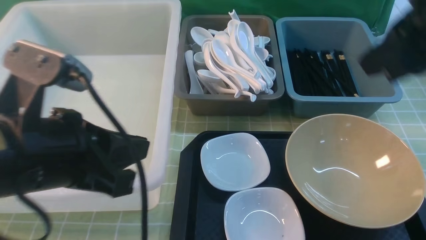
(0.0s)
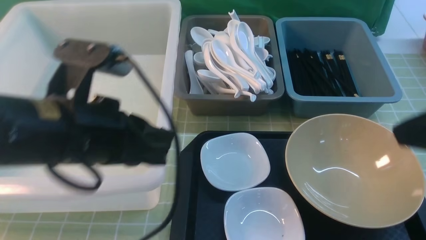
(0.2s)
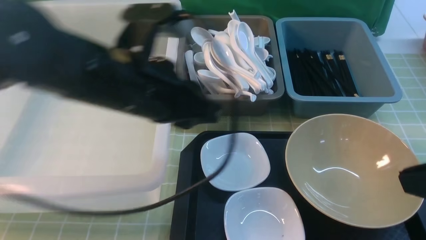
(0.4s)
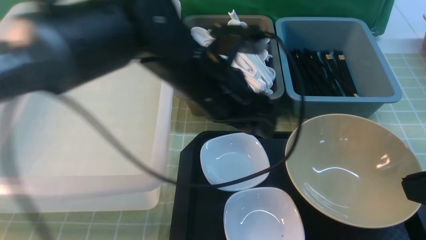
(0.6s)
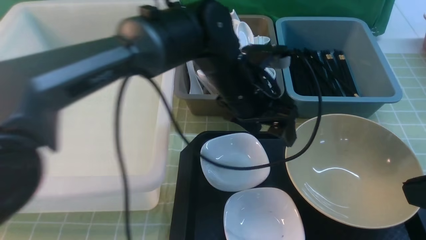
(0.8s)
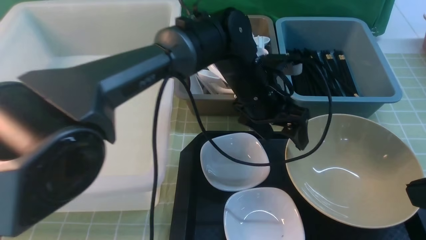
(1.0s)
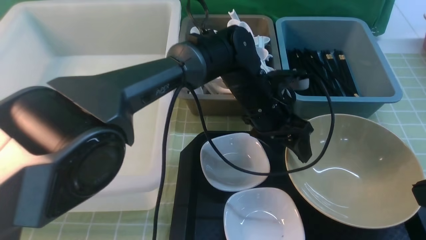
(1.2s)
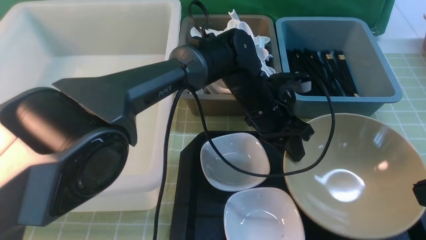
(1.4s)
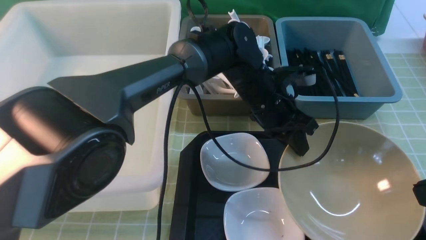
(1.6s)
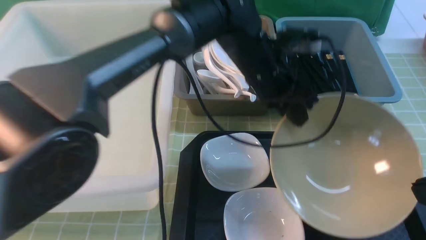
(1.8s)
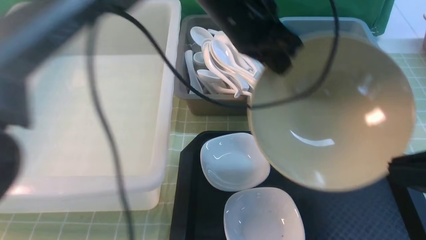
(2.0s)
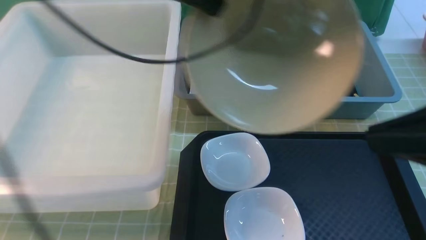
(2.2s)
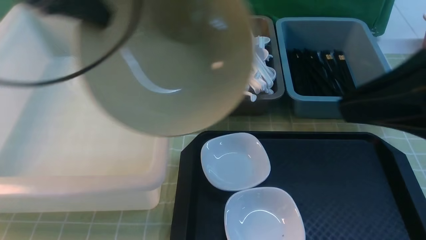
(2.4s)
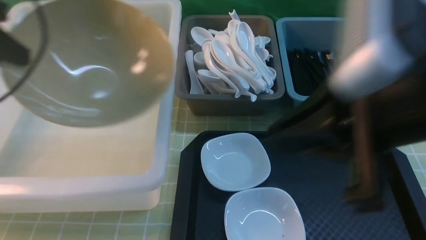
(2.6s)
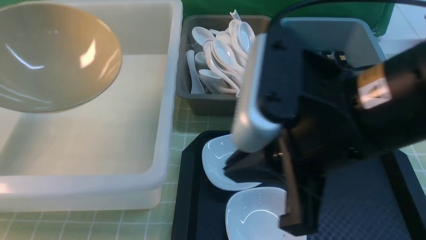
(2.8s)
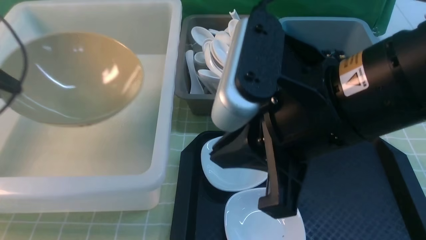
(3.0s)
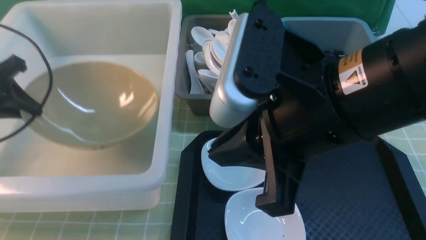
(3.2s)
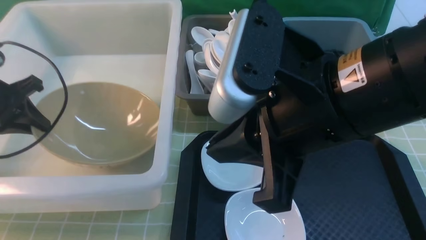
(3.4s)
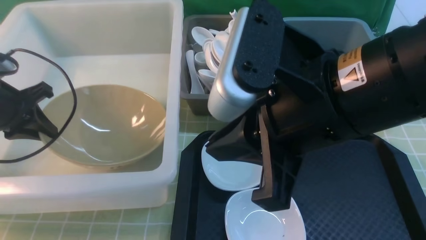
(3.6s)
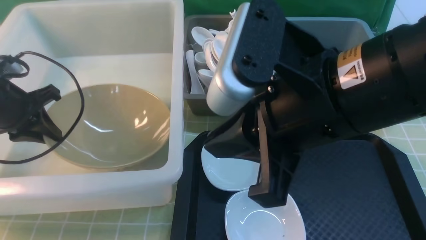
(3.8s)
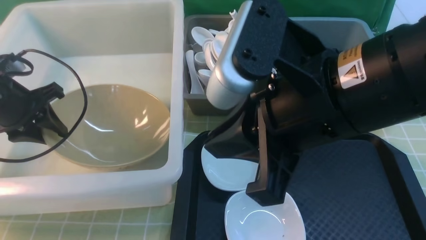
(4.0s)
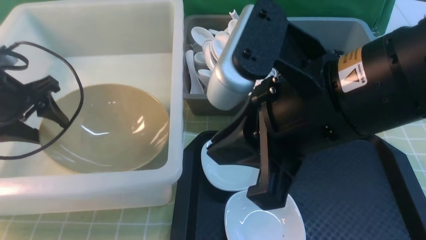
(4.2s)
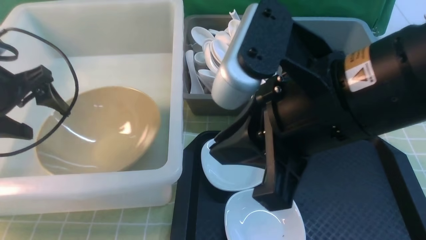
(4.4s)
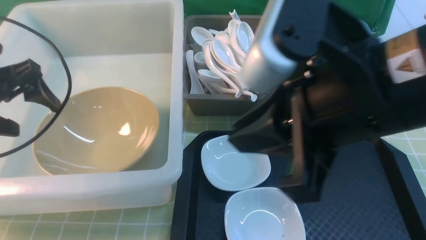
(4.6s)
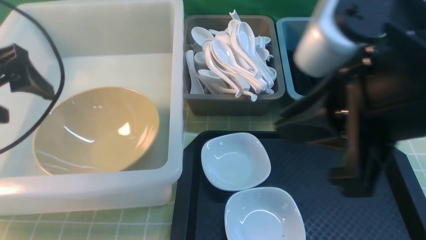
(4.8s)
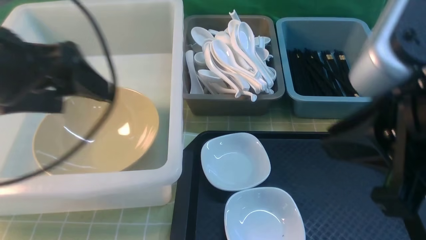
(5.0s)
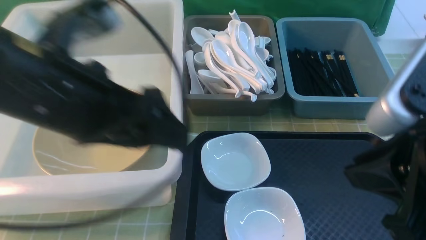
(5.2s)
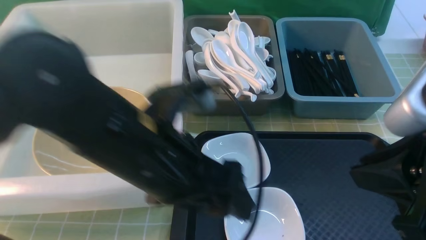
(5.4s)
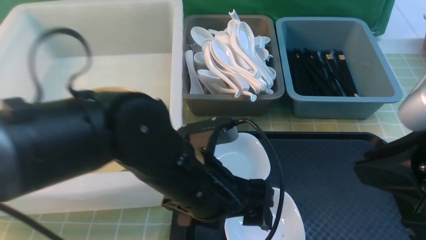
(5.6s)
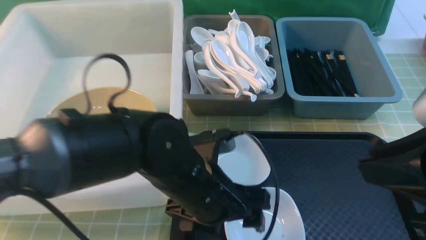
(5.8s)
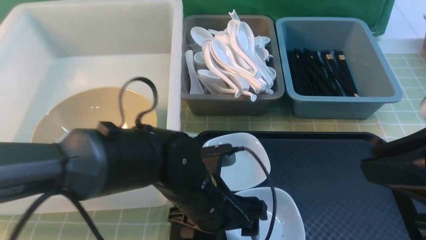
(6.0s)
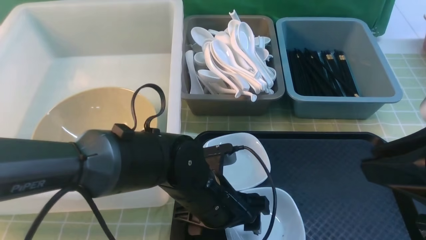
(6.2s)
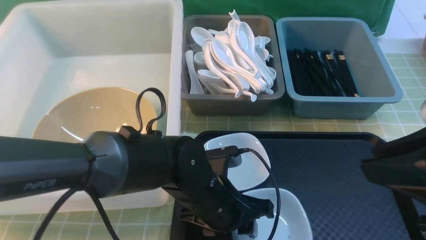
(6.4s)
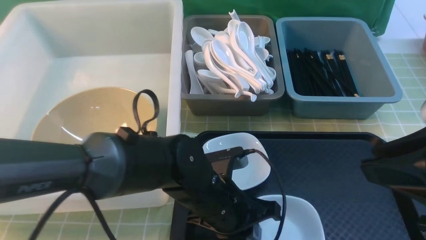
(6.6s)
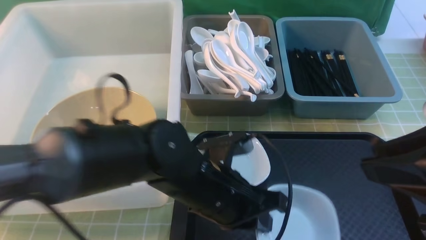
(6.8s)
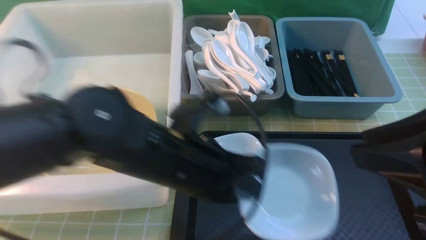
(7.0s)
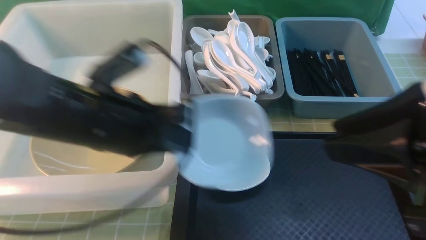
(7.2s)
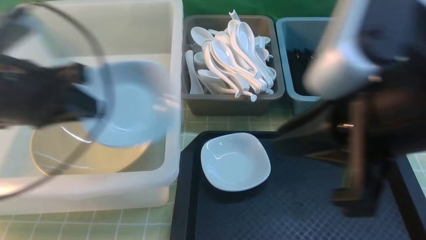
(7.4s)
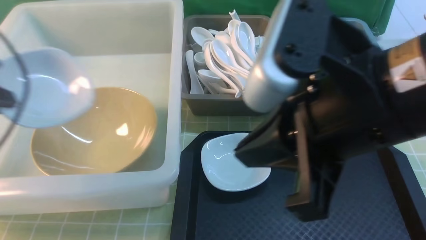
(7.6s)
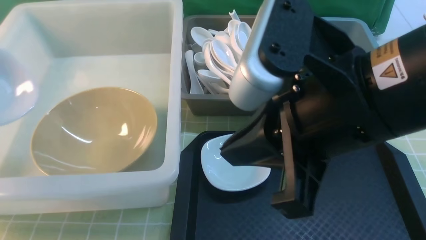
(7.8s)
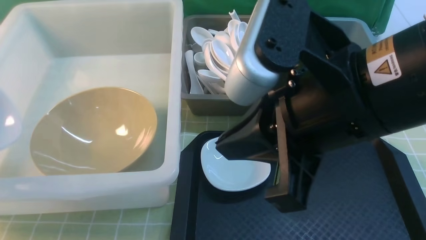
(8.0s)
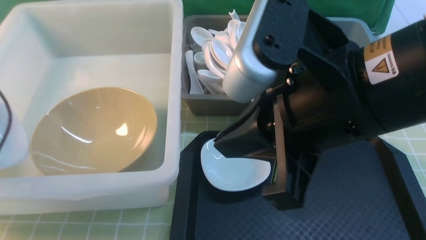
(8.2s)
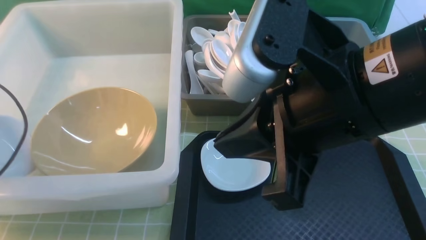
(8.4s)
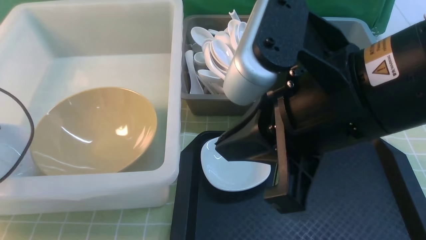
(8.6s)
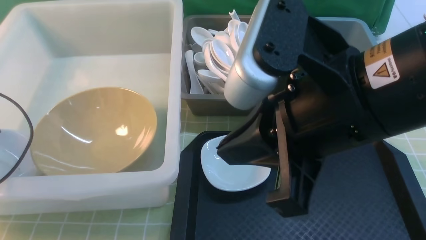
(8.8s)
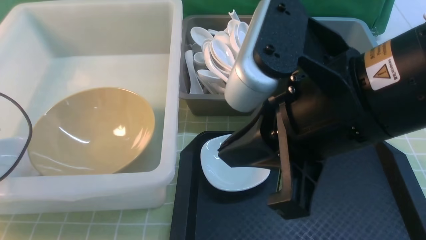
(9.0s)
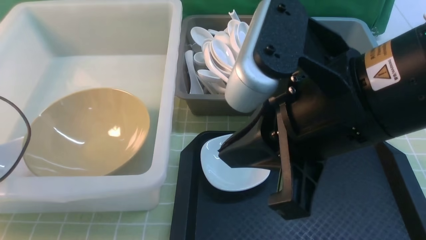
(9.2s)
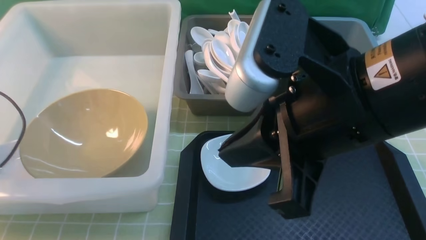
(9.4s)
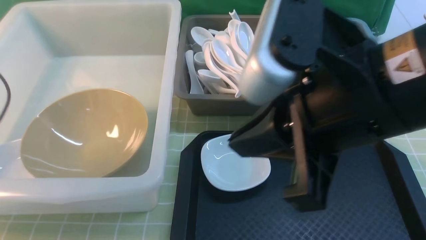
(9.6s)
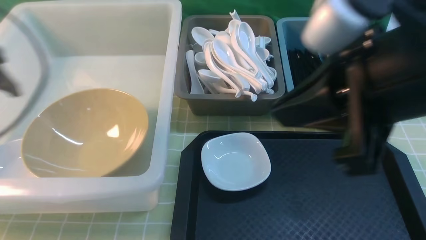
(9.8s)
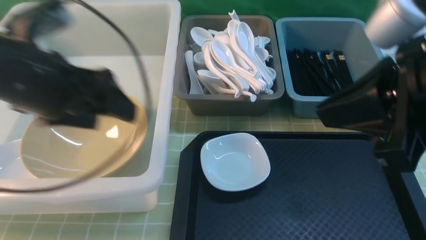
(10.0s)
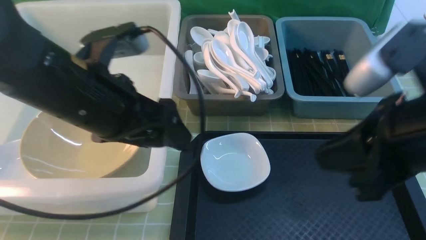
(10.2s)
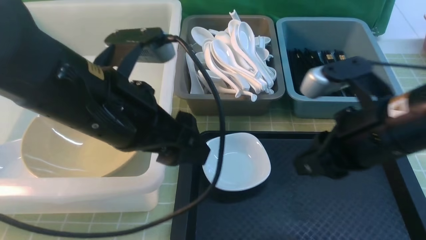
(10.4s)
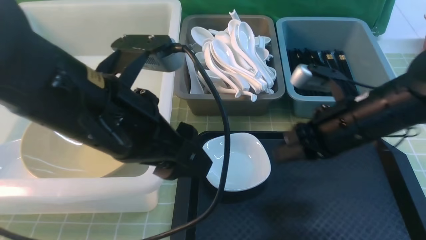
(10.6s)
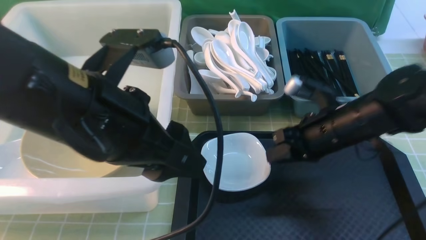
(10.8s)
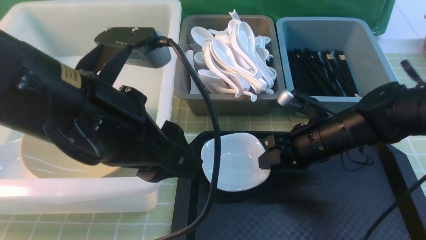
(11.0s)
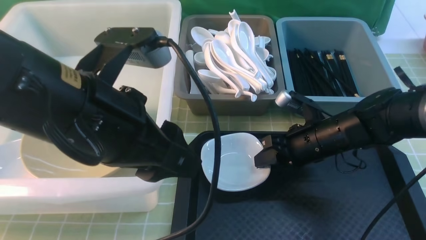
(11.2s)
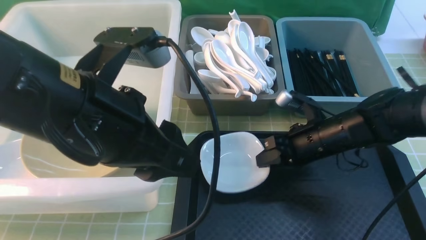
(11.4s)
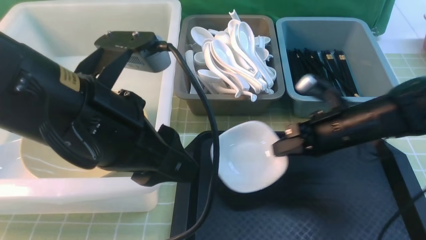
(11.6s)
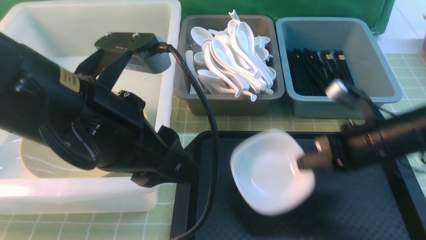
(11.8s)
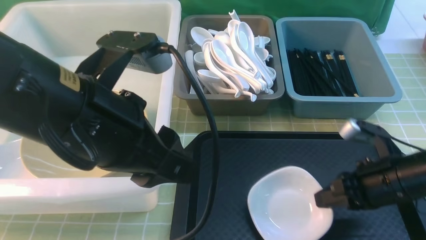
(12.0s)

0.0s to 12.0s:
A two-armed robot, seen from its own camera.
Task of the whole recording: on green table put chopsticks spoon bowls plates into blue grey white boxes.
Step, 0.0s to 1.4s: use the left arm to grab the yellow noodle bowl on the left.
Step, 1.8s to 4.4s: use the left arm to put the noodle bowl into the large storage box on the left.
Step, 4.6s to 6.8s: use the left arm to grab the plate.
Step, 7.0s to 9.2s: use the left arm to put the plate into the large storage box on the left.
Step, 9.6s to 11.4s: use the right arm to grab the plate.
0.0s to 1.6s: The right gripper heads backward and downward, covering some 15 cm. Meanwhile the left gripper goes approximately 30 cm to the right, forward and downward, and opens, then closes once more.
1.6s to 3.0s: The right gripper travels to the left by some 15 cm. The left gripper travels to the left by some 40 cm.
3.0s to 4.4s: The left gripper shifts approximately 5 cm to the right, and opens its fingers.
4.4s to 6.0s: The right gripper moves to the right and backward, about 10 cm. The left gripper travels to the right by approximately 30 cm.
6.0s to 7.6s: The left gripper travels to the left and upward by about 35 cm, and closes, while the right gripper is displaced to the left by roughly 10 cm.
7.6s to 9.0s: The left gripper moves downward and to the left, approximately 15 cm.
9.0s to 10.4s: The right gripper goes some 15 cm downward, to the right and forward; the left gripper goes some 30 cm to the right, and opens its fingers.
10.4s to 12.0s: The right gripper heads downward and to the right, covering approximately 15 cm.

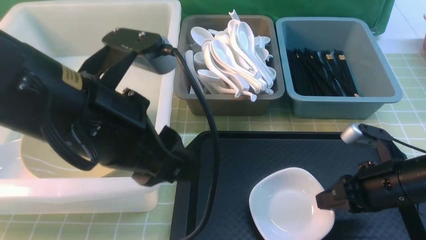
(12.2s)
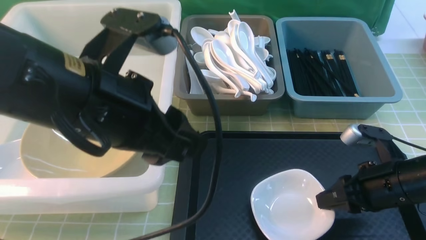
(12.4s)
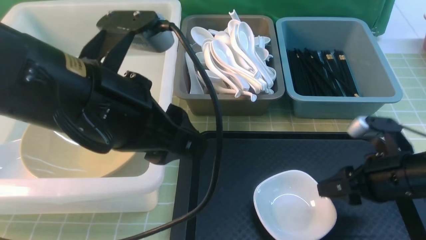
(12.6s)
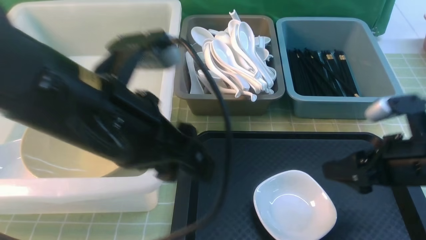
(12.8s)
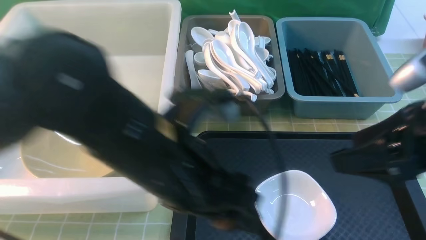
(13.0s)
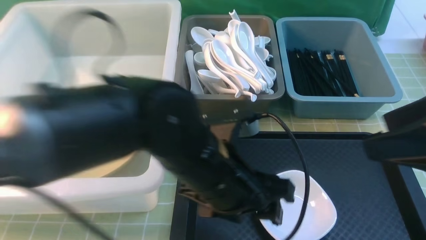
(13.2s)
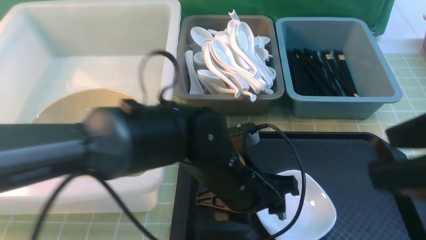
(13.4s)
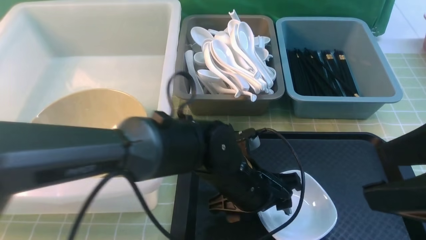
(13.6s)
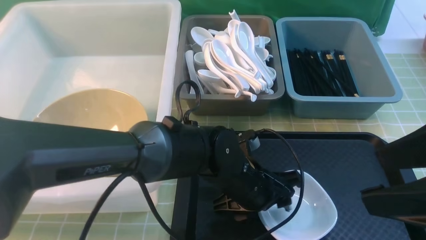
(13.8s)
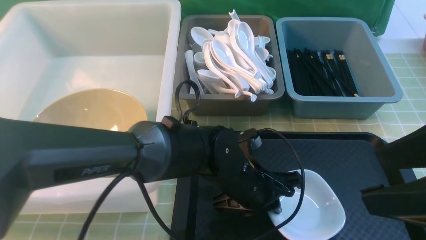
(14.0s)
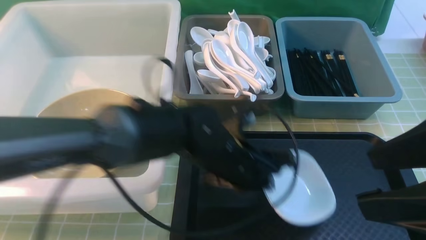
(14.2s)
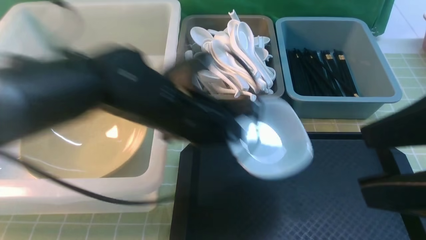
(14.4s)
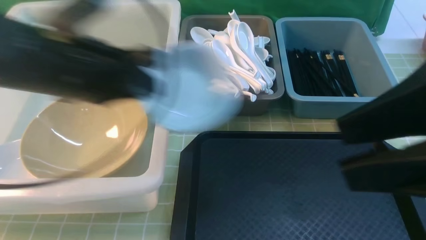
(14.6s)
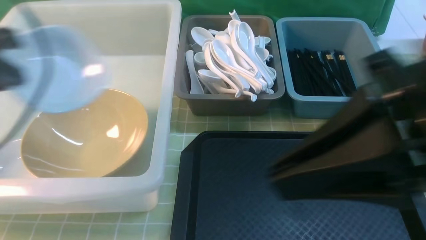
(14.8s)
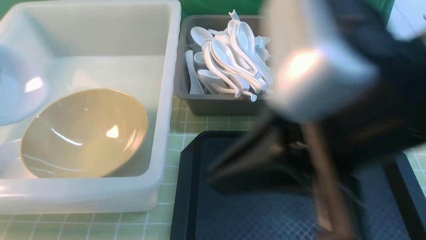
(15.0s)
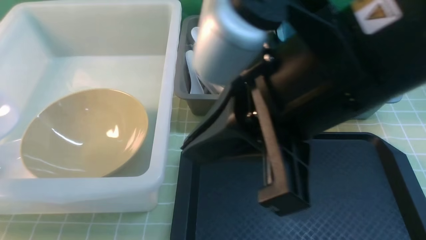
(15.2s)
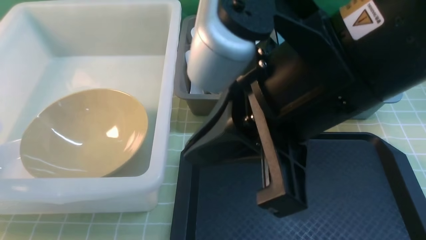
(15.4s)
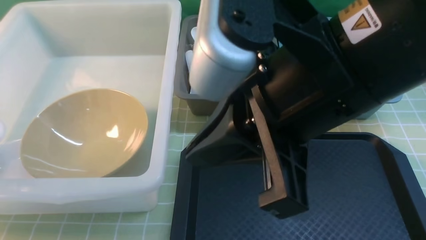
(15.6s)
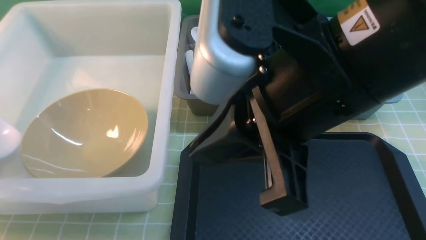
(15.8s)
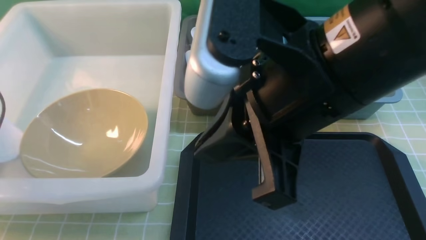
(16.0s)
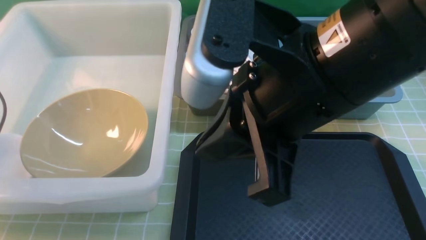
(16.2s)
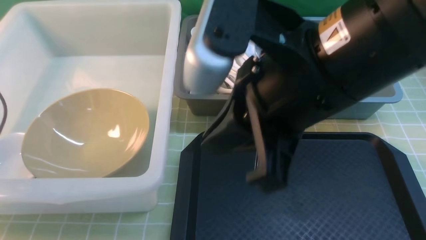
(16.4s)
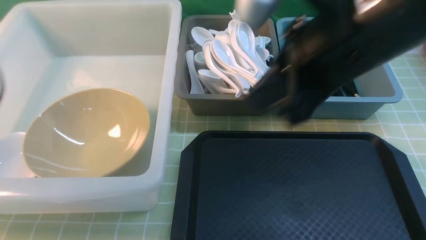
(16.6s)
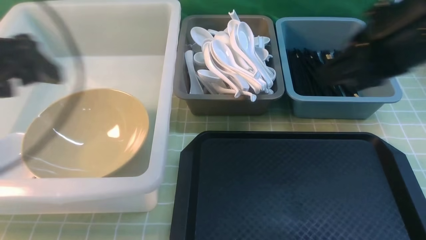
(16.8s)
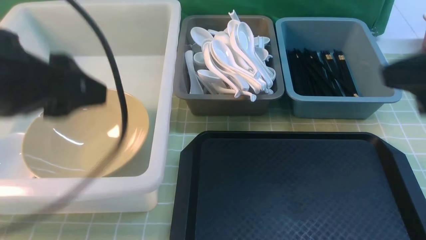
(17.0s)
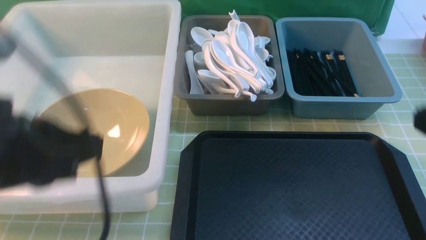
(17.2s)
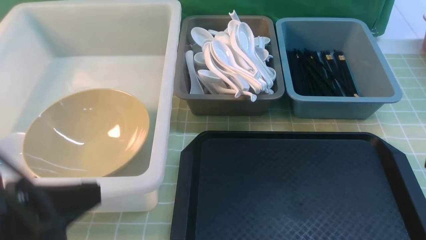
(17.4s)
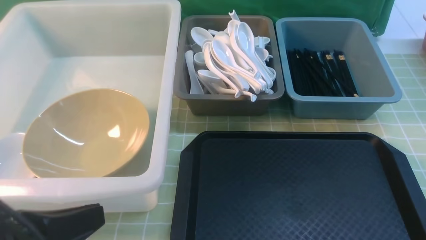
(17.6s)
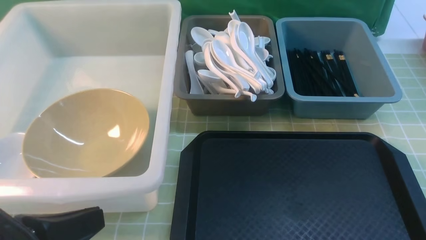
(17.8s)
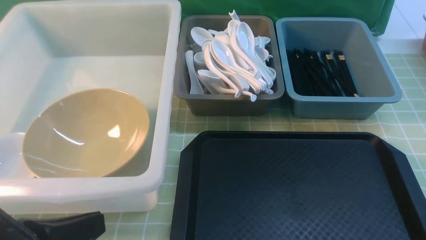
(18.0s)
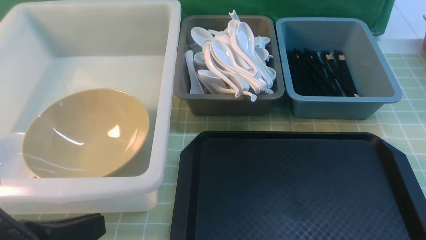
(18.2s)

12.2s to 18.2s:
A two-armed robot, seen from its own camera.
Task of the whole recording: on green table put chopsticks spoon bowls plates into blue grey white boxes.
Step, 13.0s to 14.2s: use the left arm to grab the plate.
Step, 14.4s to 16.6s: use the left arm to put the plate into the large storage box on the left.
12.2s to 13.8s: The right gripper travels upward and backward by roughly 25 cm, and opens; the left gripper goes about 25 cm downward and to the right.
13.8s to 15.2s: The left gripper shifts roughly 40 cm to the left and upward, and closes up. The right gripper shifts about 15 cm to the left, and closes.
15.2s to 16.6s: The left gripper travels to the right by approximately 5 cm, and opens its fingers, while the right gripper goes approximately 10 cm forward and to the right.
16.6s to 18.2s: The left gripper heads backward and to the right, covering approximately 20 cm, and closes; the right gripper heads backward, to the right and downward, covering some 25 cm.
